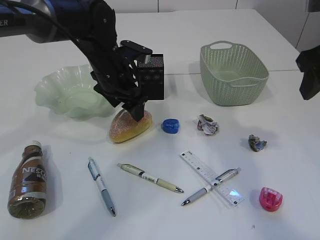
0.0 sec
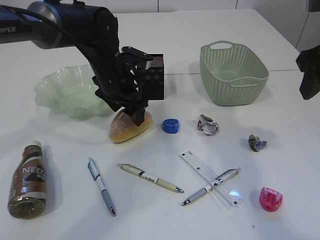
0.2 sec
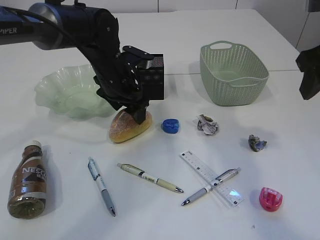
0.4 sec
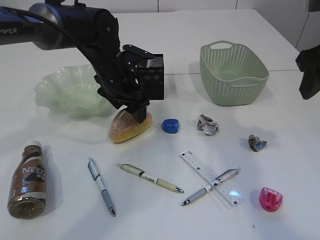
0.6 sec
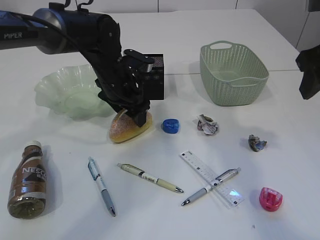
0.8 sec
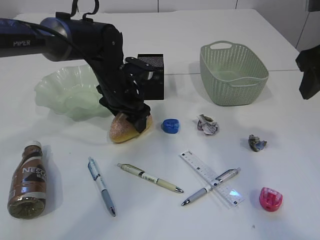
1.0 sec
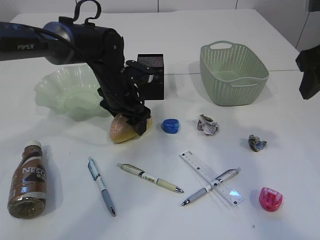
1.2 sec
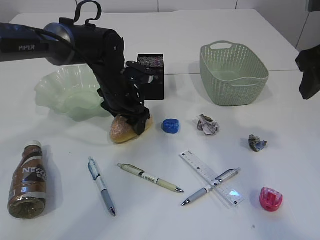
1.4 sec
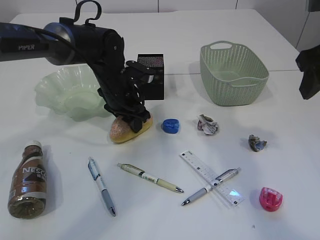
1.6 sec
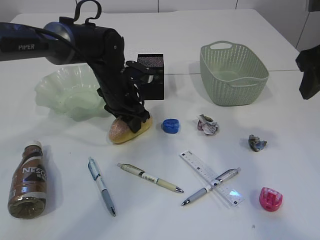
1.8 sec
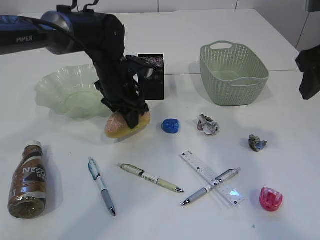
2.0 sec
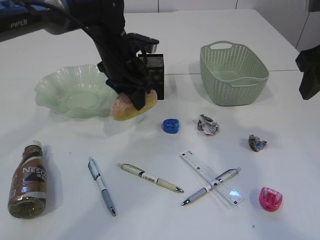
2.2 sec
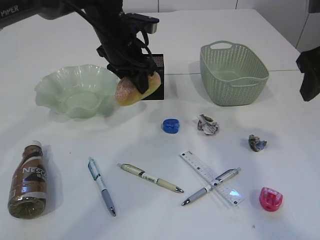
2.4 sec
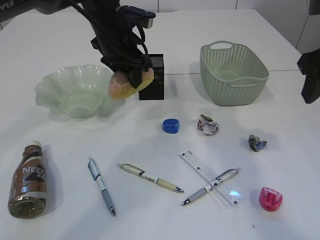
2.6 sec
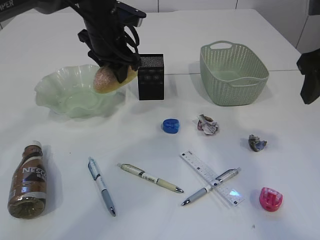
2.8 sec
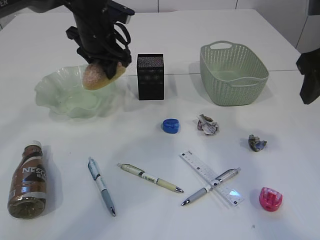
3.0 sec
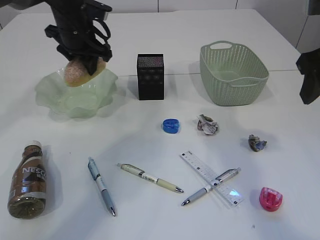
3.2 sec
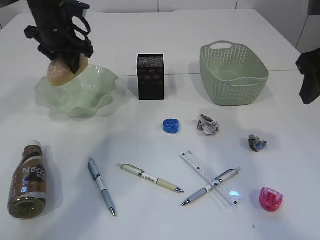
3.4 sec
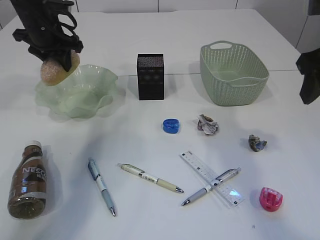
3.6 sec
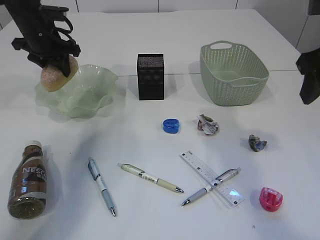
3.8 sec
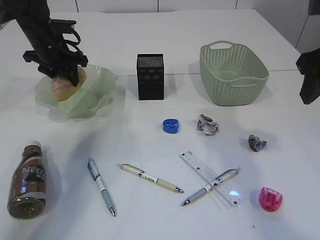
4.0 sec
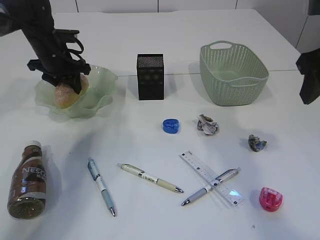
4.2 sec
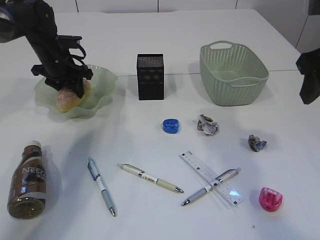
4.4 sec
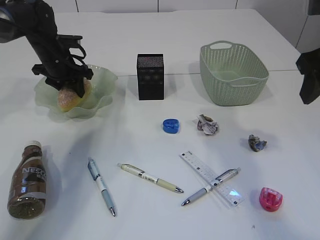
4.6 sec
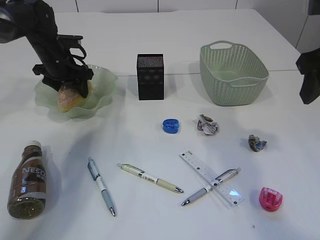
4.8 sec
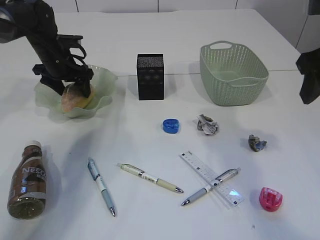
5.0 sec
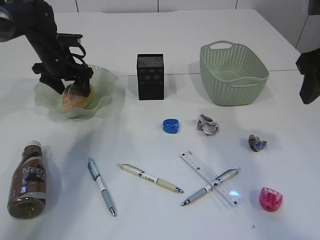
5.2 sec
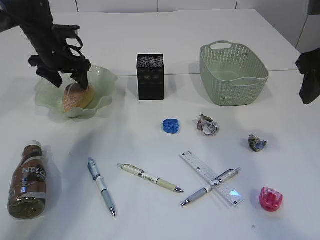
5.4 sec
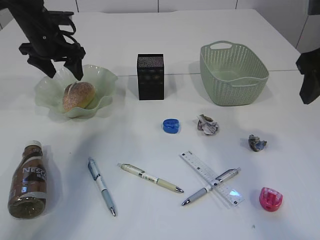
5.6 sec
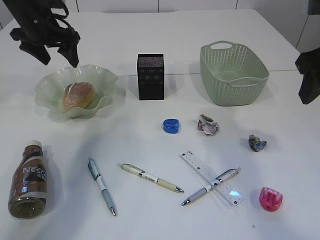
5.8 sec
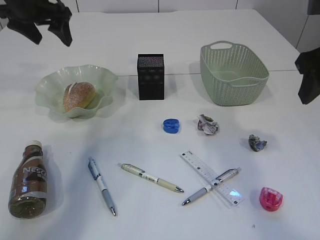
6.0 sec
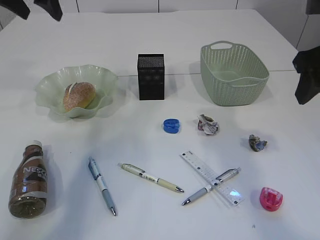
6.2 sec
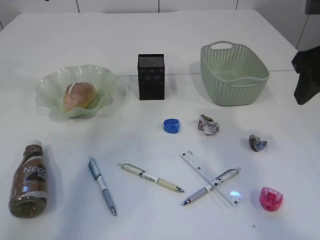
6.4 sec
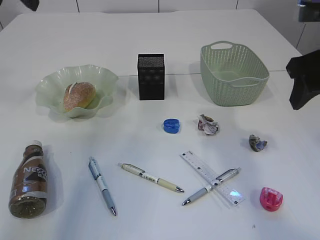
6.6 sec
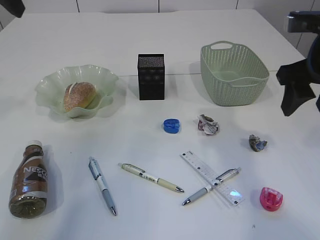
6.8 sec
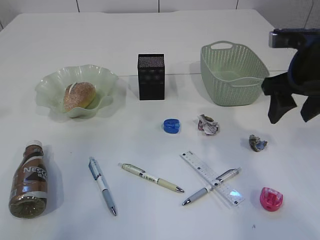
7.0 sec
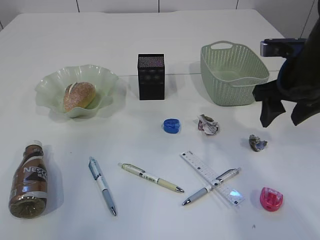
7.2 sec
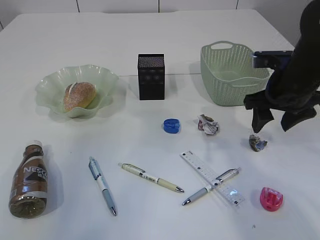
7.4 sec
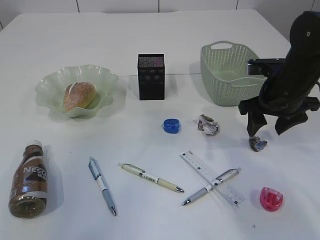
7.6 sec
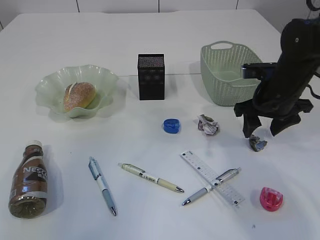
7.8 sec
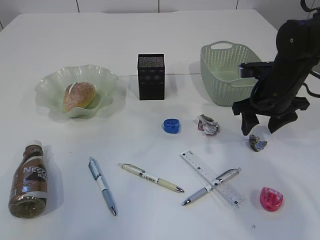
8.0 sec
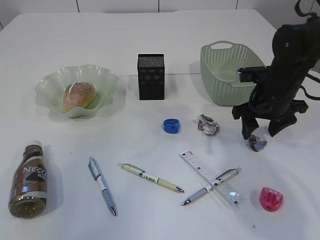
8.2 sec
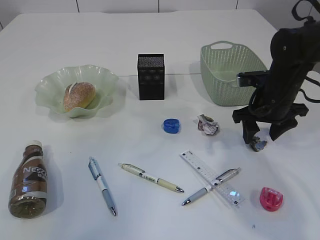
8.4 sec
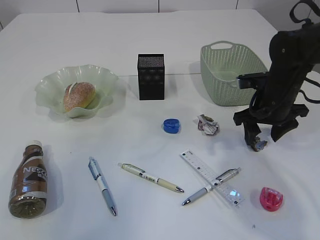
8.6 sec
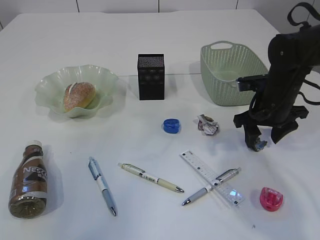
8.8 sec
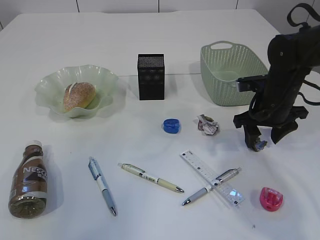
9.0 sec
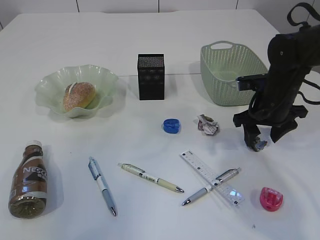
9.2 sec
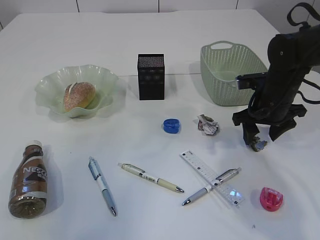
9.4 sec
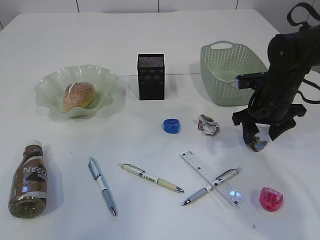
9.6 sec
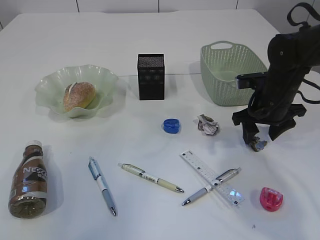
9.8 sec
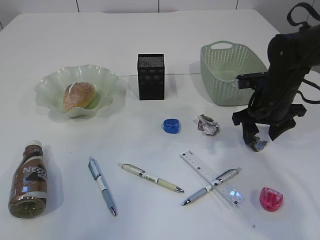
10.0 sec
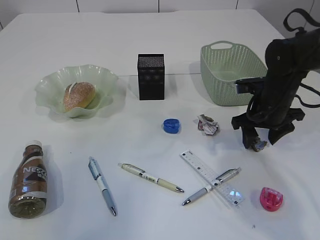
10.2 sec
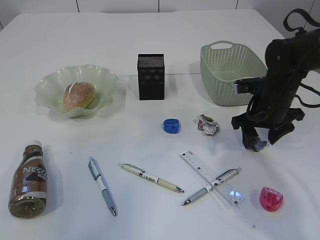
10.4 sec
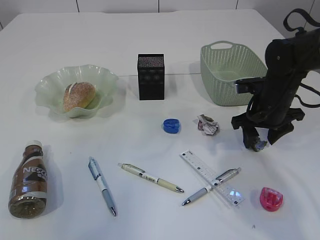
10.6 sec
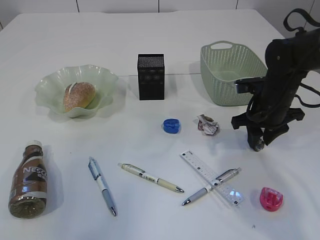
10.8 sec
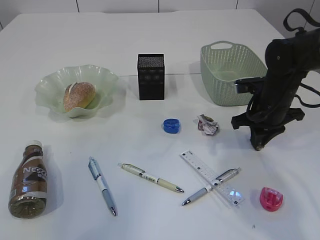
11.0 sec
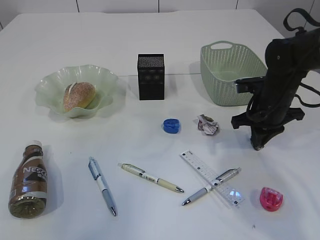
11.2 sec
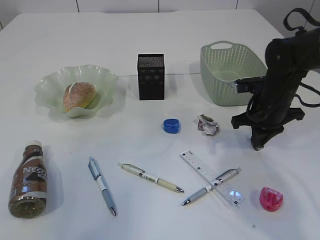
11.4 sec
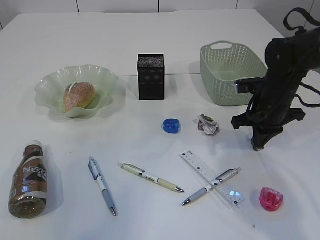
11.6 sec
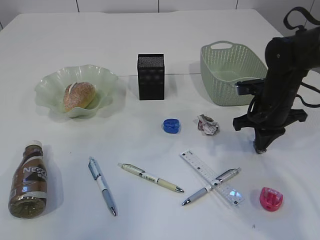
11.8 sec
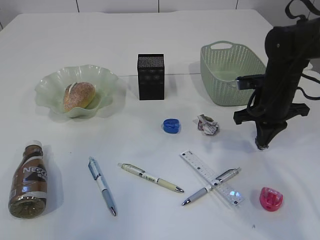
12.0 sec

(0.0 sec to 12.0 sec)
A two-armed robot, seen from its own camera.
Step, 2.6 sec - 5.8 sec: place the bread in the plate.
0.0 sec - 1.6 sec: The left gripper is displaced downward by about 5 cm, and closes.
1.6 sec - 3.0 sec: The left gripper heads upward, covering about 10 cm.
3.0 sec - 4.4 sec: The left gripper heads to the left, downward and forward, covering some 15 cm.
4.4 sec - 6.0 sec: The left gripper goes some 15 cm upward, and opens up.
6.0 sec - 7.6 sec: The right gripper moves downward and forward, about 15 cm, while the left gripper heads backward and upward, covering approximately 25 cm.
7.6 sec - 9.0 sec: The right gripper ends up about 5 cm from where it was.
9.0 sec - 10.4 sec: The two grippers keep their place.
10.4 sec - 12.0 sec: The right gripper closes its fingers.

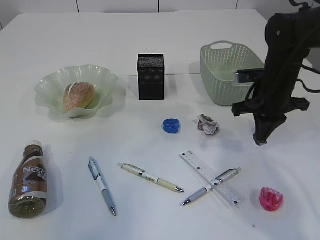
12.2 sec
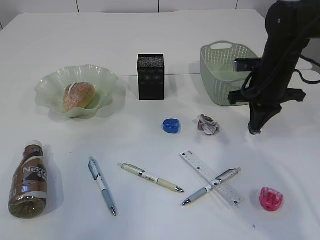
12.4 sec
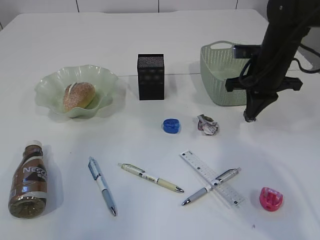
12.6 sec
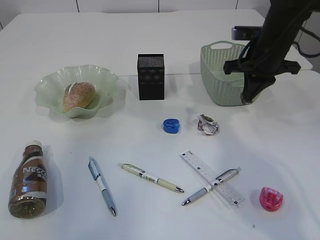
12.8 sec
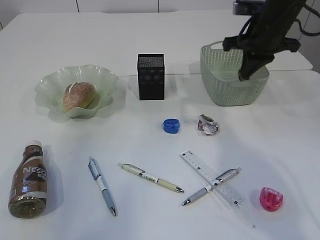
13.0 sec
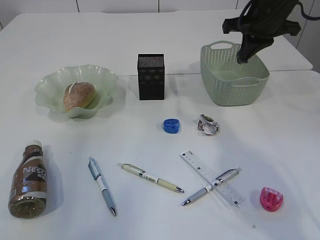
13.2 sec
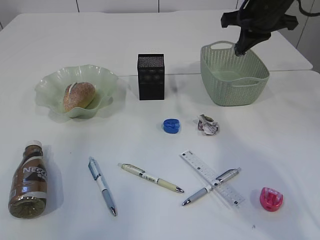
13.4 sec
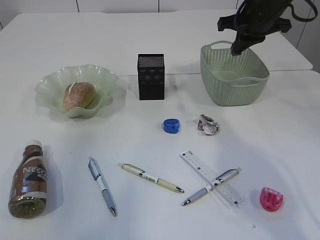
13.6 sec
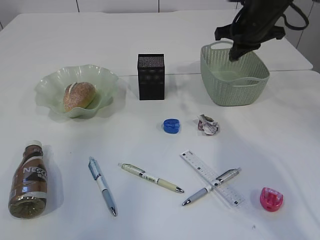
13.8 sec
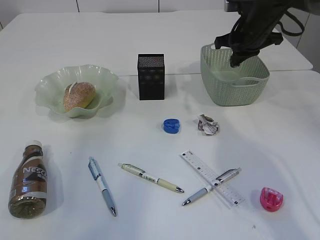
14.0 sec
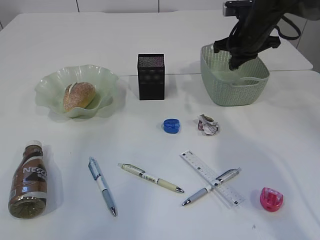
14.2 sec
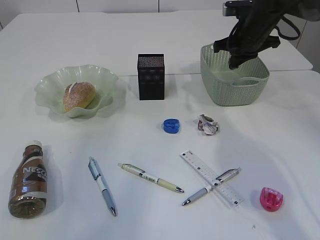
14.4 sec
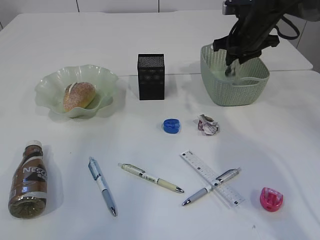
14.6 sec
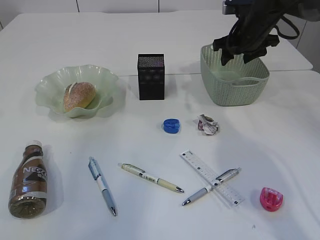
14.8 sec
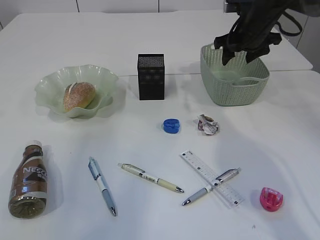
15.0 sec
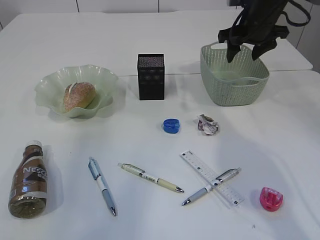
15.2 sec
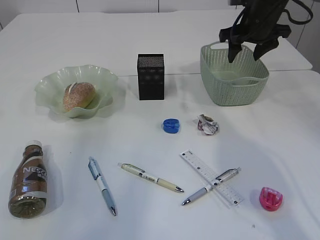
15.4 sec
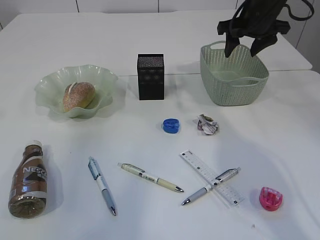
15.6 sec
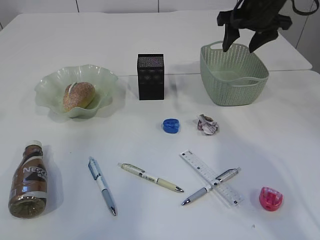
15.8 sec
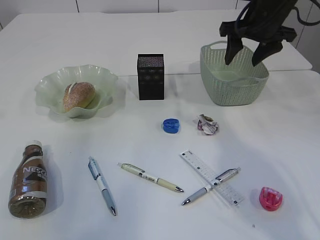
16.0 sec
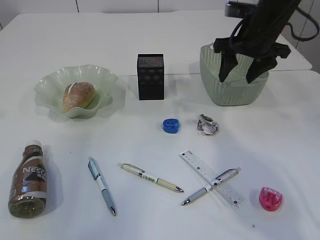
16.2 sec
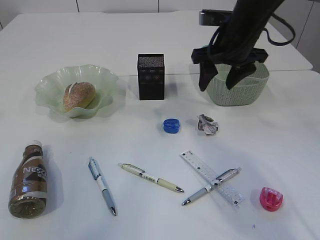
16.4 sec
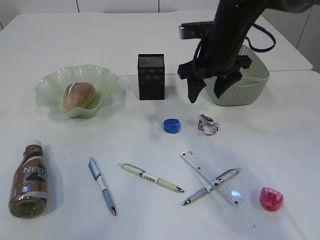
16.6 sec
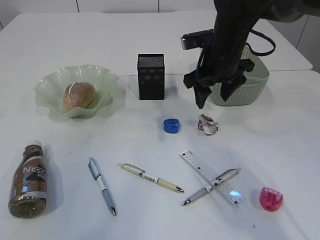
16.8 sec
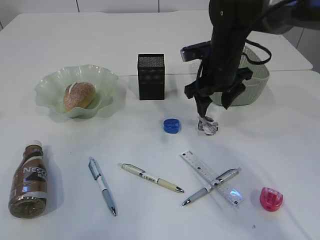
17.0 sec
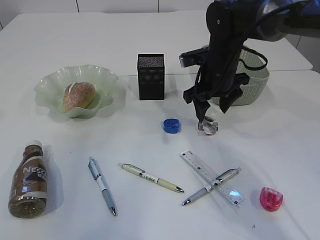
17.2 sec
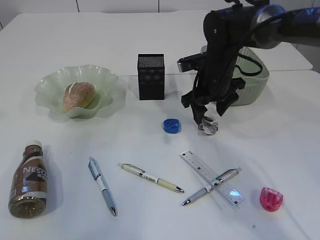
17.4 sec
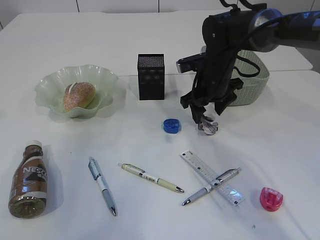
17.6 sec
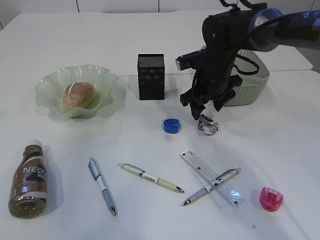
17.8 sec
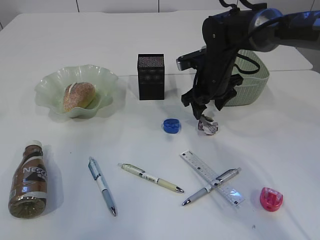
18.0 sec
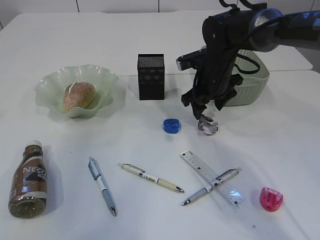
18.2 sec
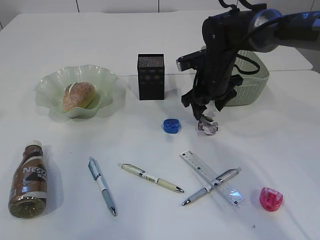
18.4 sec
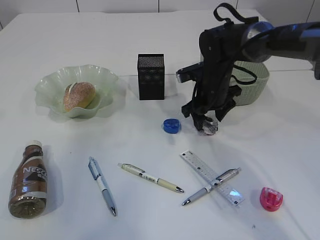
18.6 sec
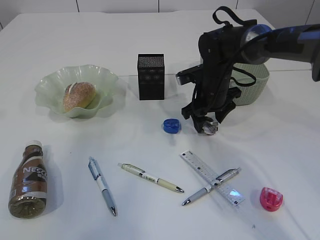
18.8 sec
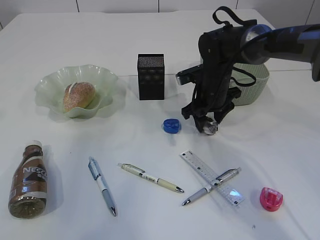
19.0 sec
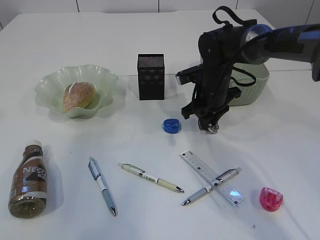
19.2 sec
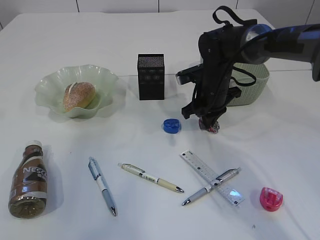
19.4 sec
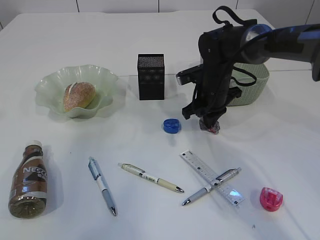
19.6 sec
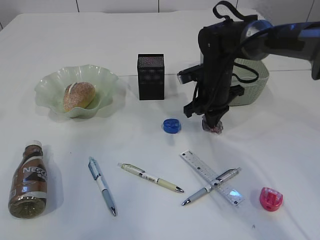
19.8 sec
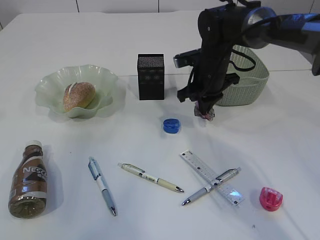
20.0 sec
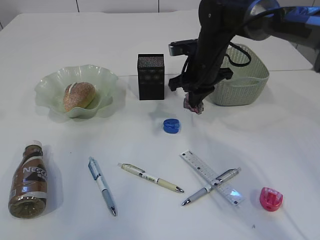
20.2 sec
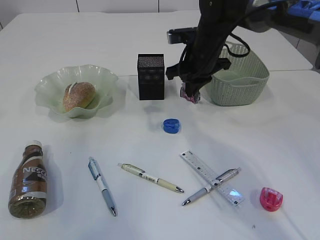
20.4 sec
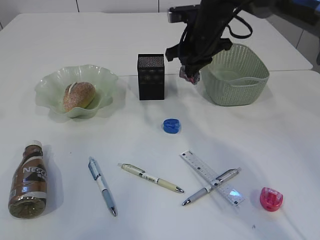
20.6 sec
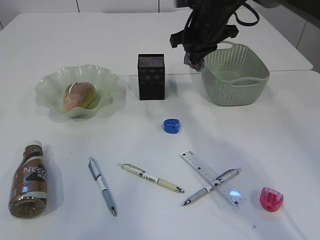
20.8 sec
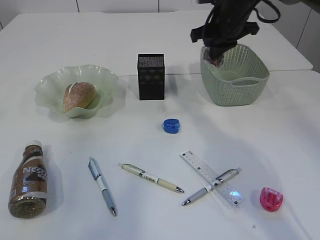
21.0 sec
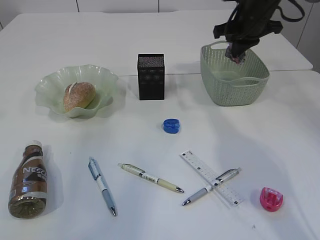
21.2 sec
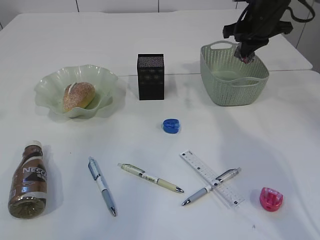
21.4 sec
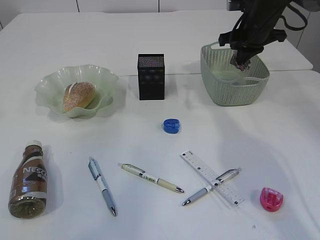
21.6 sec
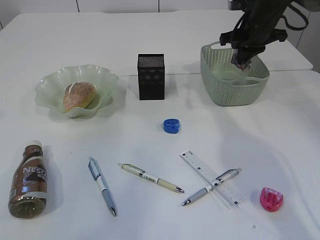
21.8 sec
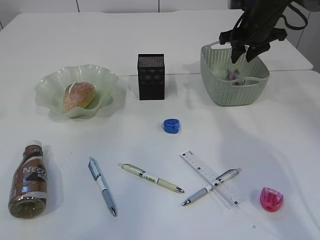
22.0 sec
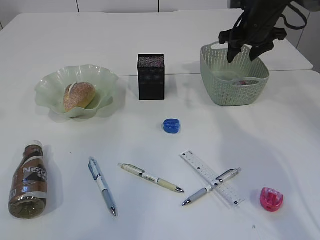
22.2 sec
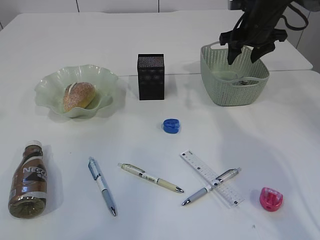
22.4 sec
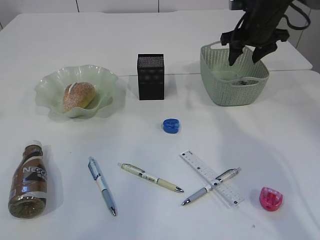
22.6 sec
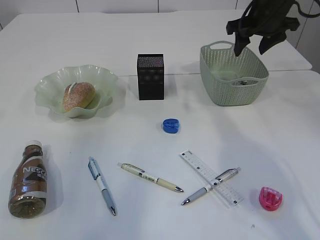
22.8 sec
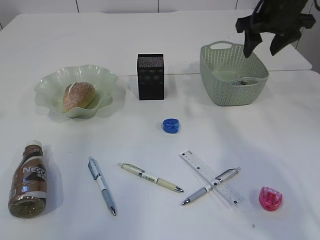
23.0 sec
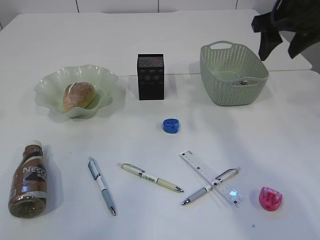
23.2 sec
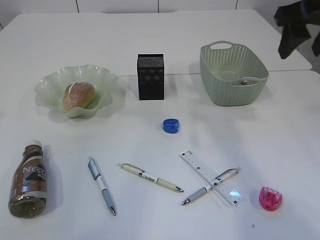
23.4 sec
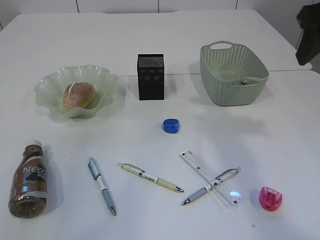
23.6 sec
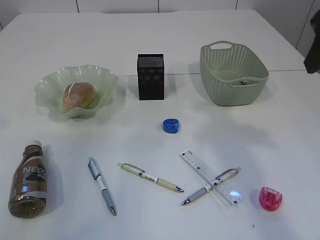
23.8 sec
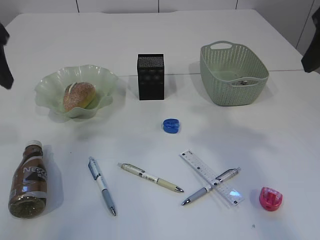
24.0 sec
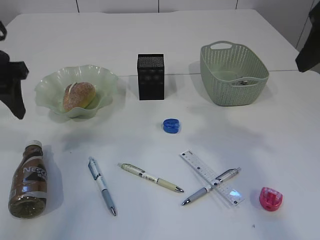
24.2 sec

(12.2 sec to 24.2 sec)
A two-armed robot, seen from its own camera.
Step, 12.6 sec - 16.0 sec: Place the waste paper in the basket.
Step, 16.2 sec - 20.0 sec: Pick up the waste paper.
Step, 20.2 sec - 23.0 sec: Place the waste paper in the basket.
12.2 sec - 13.8 sec: The right gripper travels upward and forward by roughly 15 cm.
13.8 sec - 15.2 sec: The right gripper opens.
15.2 sec - 16.6 sec: The right gripper moves to the left and backward, approximately 10 cm.
16.6 sec - 18.2 sec: The right gripper travels downward by roughly 10 cm.
18.2 sec - 19.8 sec: The right gripper closes.
19.8 sec - 21.2 sec: The right gripper goes about 15 cm upward, to the right and forward.
21.2 sec - 22.6 sec: The right gripper opens.
22.6 sec - 24.2 sec: The left gripper travels downward by roughly 15 cm. Meanwhile the right gripper shifts approximately 30 cm backward and upward.
